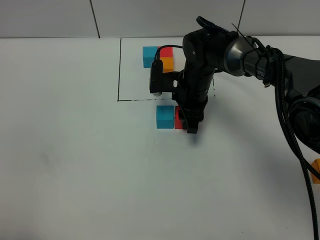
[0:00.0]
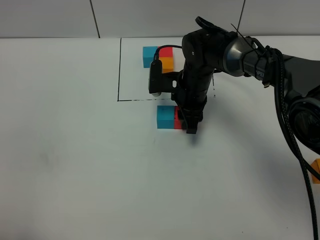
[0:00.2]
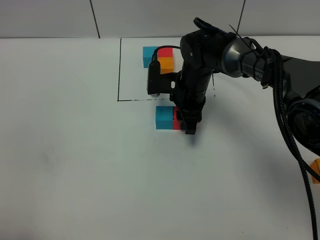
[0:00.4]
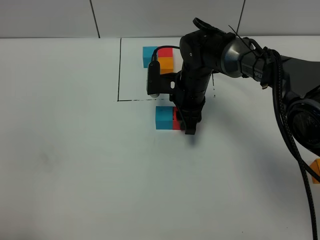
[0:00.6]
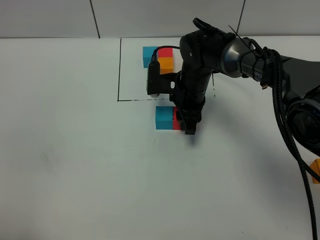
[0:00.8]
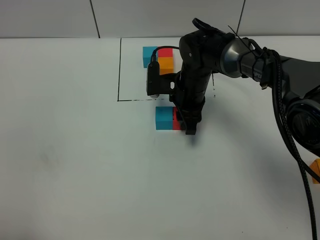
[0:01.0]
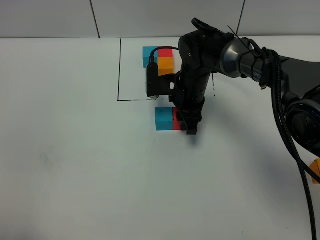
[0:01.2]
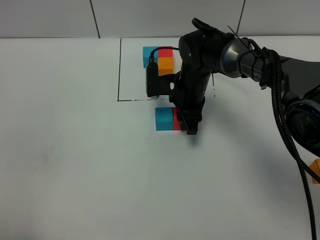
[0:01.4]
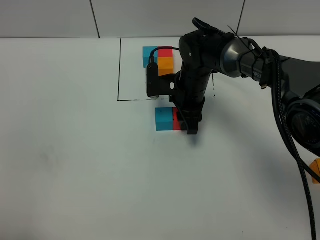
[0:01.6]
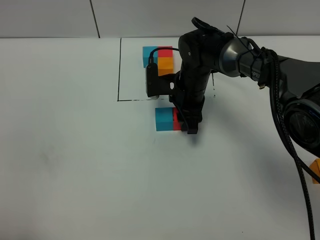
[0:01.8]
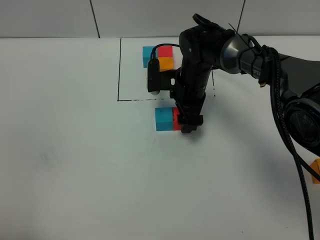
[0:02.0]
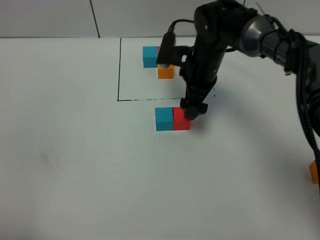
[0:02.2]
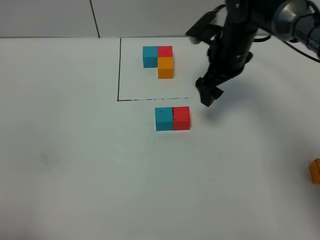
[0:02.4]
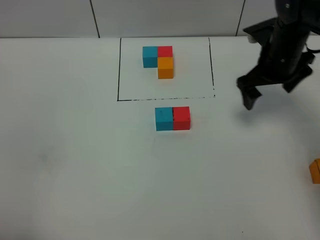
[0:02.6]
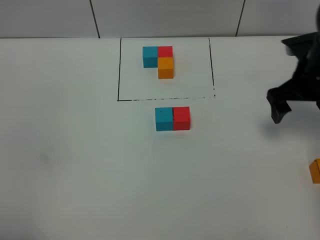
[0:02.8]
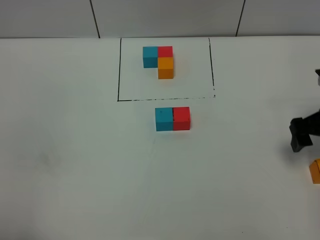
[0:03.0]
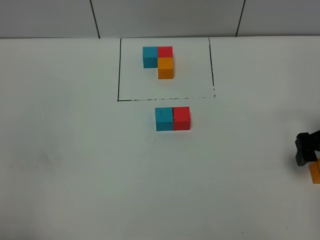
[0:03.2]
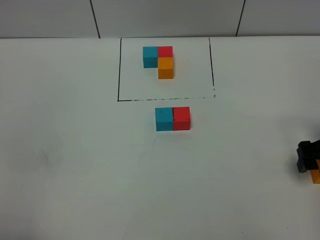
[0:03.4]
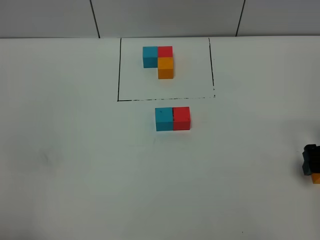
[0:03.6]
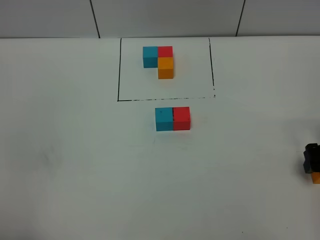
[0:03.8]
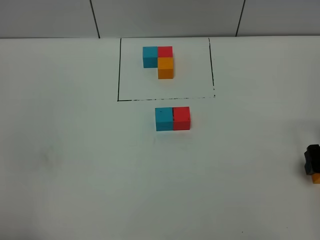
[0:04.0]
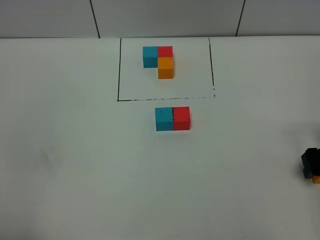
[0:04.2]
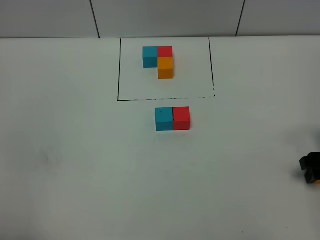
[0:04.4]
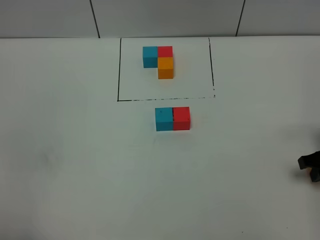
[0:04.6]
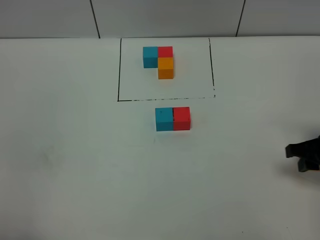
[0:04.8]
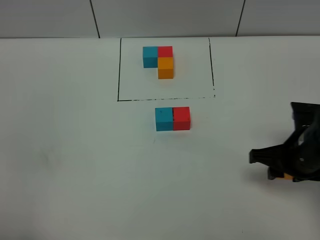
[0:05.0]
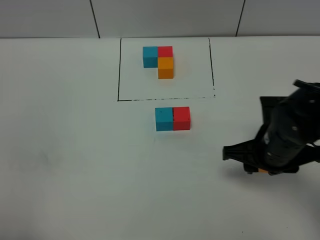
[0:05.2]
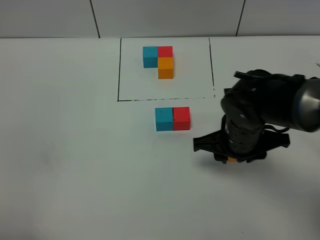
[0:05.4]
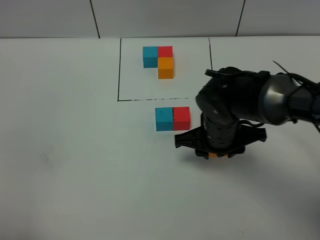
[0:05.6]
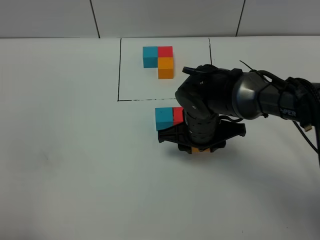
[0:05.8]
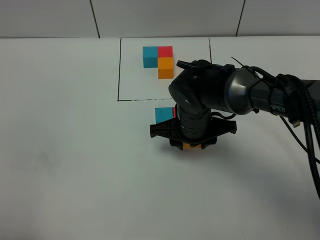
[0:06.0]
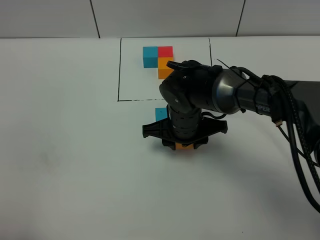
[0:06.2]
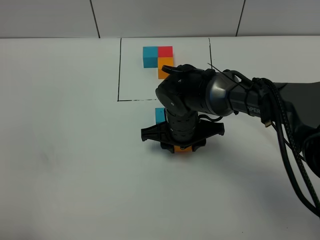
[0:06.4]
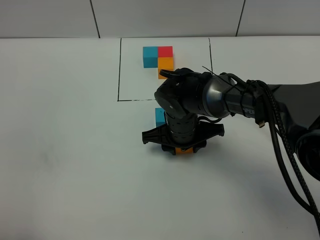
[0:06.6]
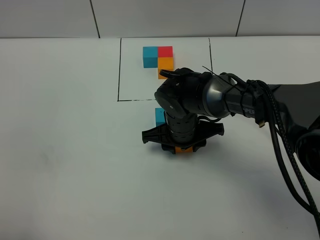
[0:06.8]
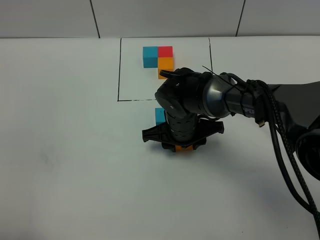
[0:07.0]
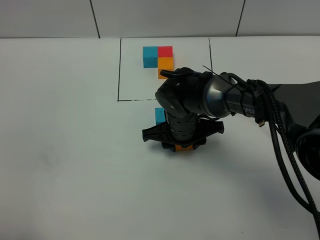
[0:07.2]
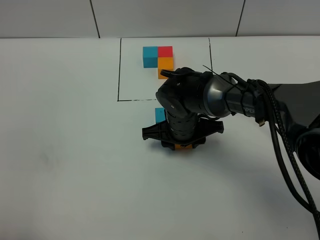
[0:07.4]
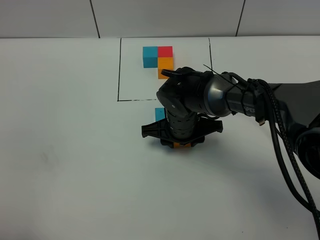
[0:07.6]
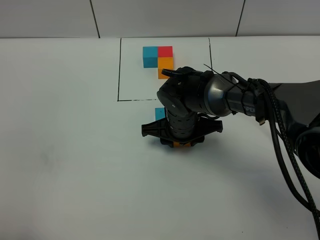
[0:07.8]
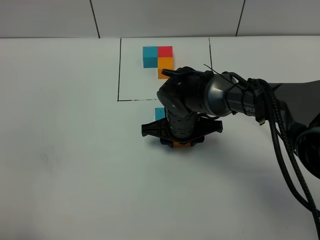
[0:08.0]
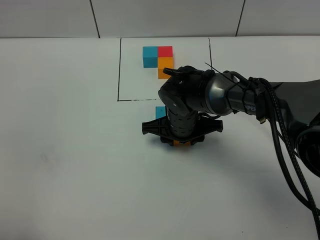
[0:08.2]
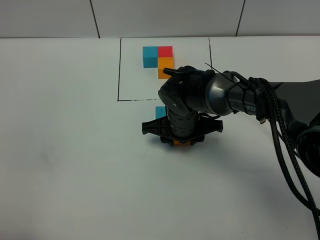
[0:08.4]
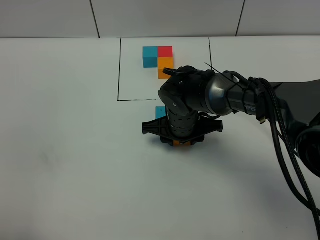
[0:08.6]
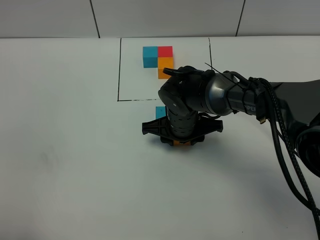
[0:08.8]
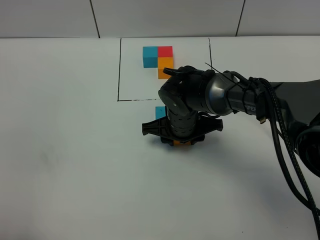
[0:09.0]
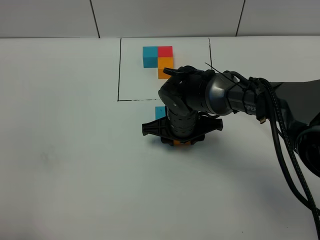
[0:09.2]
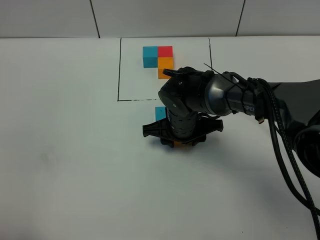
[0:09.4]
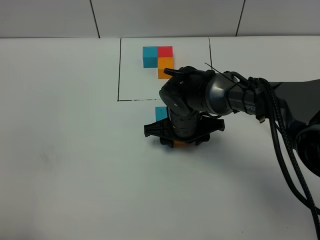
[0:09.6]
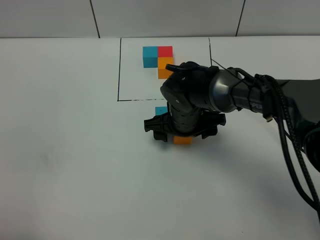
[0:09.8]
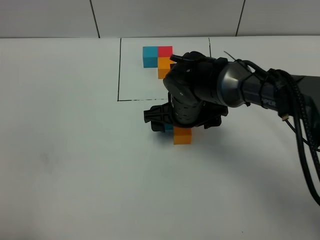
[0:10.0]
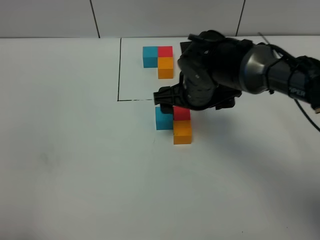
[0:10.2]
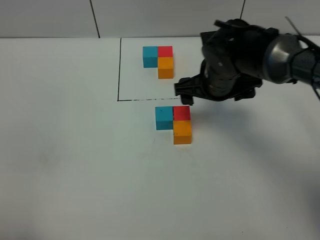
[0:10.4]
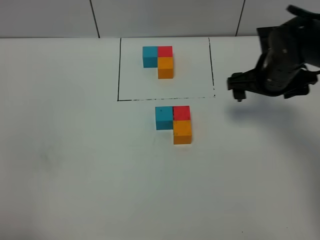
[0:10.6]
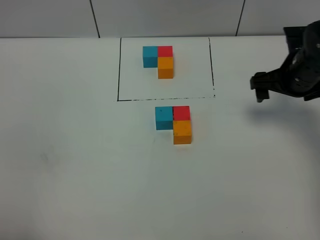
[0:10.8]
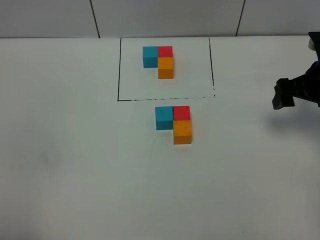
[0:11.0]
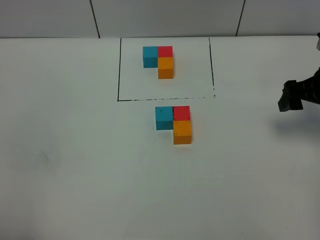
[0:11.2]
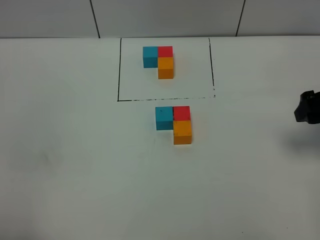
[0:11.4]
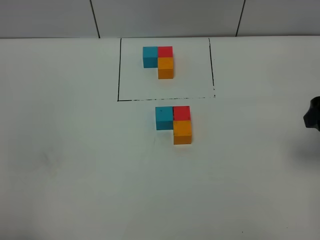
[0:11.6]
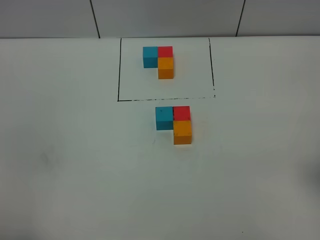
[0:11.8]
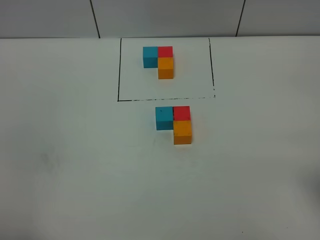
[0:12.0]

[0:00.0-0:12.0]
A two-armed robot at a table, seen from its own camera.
Task of the whole recording: According to the building block template in front, assemble the scattered blocks together.
Step, 0:01.8 to 0:09.6: Put the orange build block on the behind of the red build block.
0:00.0 to 0:01.6: Both grippers stay about where they are.
0:01.6 to 0:03.0: The right gripper travels to the right and backward by some 30 cm, and opens up.
0:03.0 to 0:04.4: The right gripper moves downward, approximately 5 cm, and closes its fingers.
0:04.4 to 0:06.0: The right gripper shifts some 30 cm to the left.
0:06.0 to 0:07.6: The grippers move only a little.
0:07.6 to 0:09.0: Neither gripper changes place.
0:09.0 to 0:10.4: The right gripper goes approximately 10 cm to the right and upward, and opens.
0:10.4 to 0:12.0: The right gripper goes roughly 30 cm backward, to the right and upward.

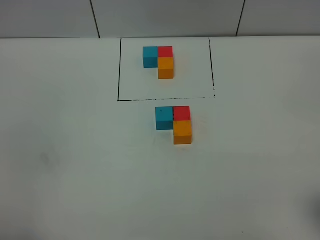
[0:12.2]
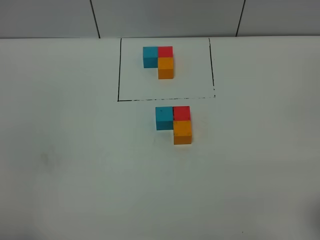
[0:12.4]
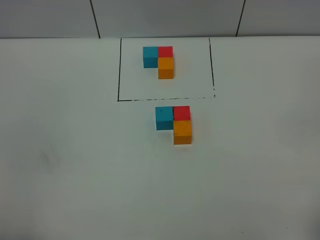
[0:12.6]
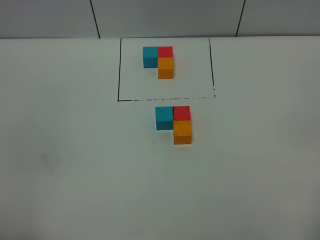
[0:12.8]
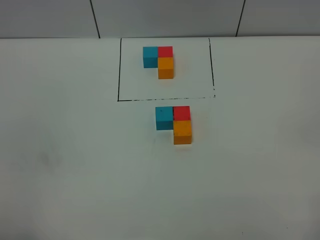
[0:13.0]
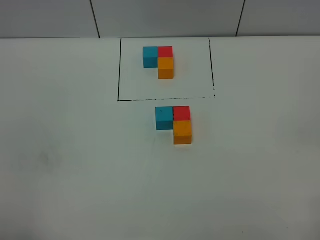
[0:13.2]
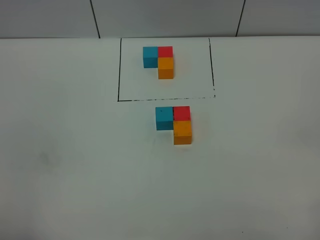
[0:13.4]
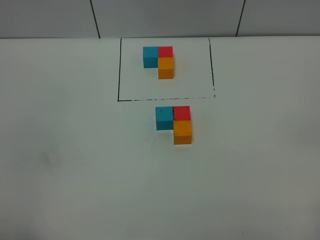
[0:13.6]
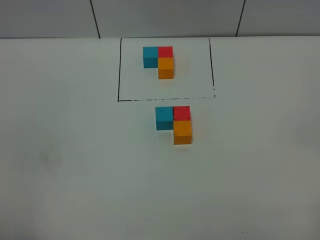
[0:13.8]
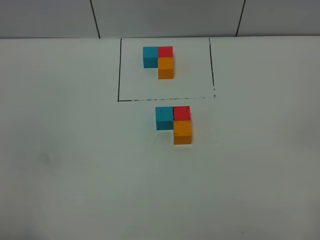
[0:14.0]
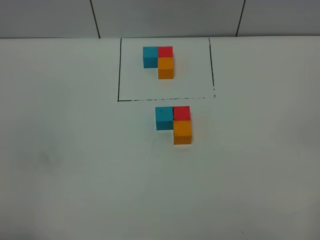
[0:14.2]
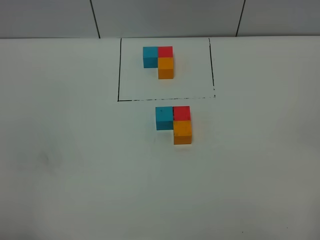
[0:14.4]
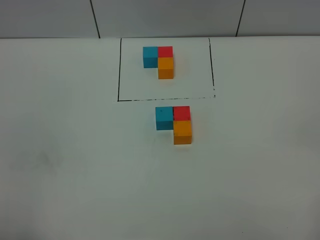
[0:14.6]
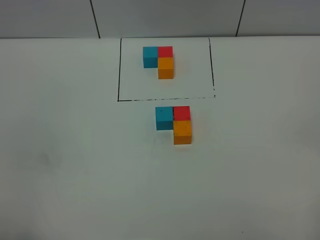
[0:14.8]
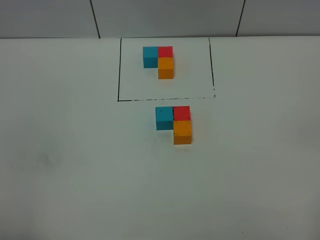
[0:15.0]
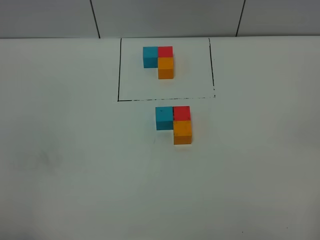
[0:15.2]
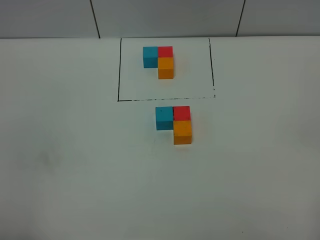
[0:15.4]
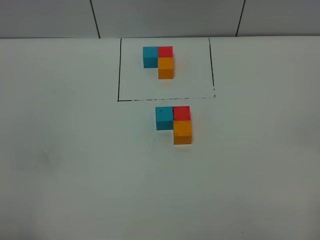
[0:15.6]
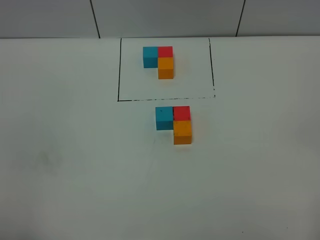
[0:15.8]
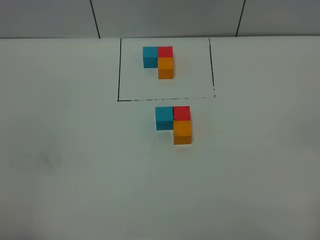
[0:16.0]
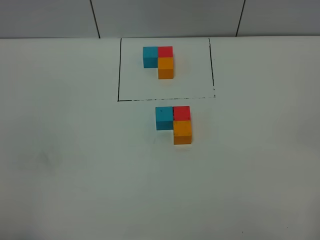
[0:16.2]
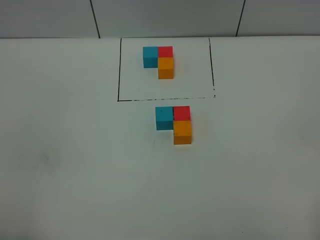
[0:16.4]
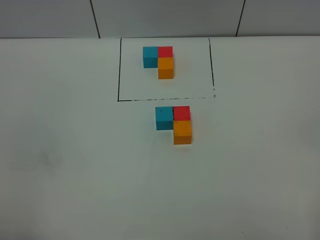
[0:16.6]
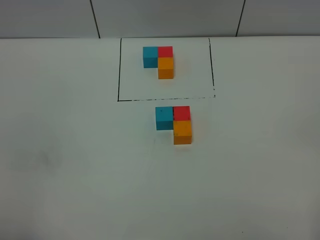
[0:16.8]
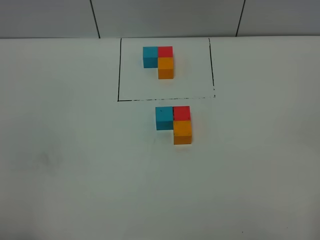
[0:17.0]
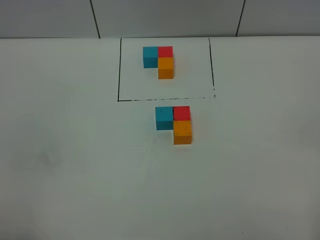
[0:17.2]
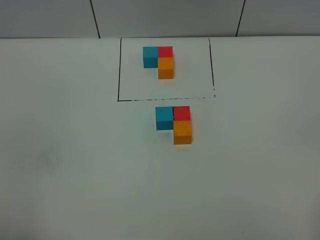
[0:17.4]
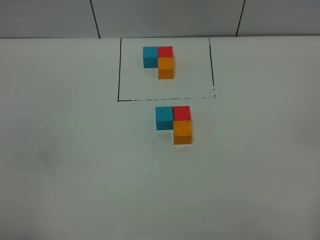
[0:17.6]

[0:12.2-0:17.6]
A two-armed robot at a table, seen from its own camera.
Task of the whole recording: According to the building block template in front, assemble the scattered blocks together.
0:13.6 to 0:16.2: Neither gripper changes place.
0:16.2 to 0:17.6: Neither gripper changes place.

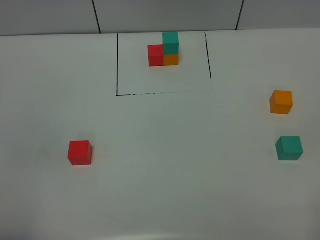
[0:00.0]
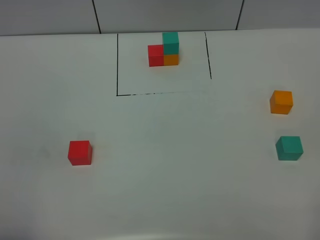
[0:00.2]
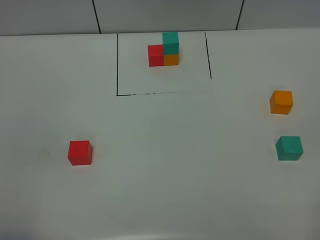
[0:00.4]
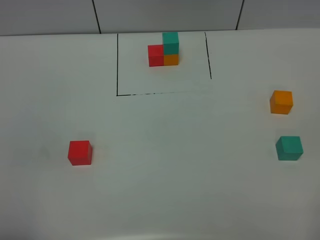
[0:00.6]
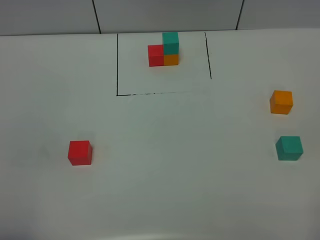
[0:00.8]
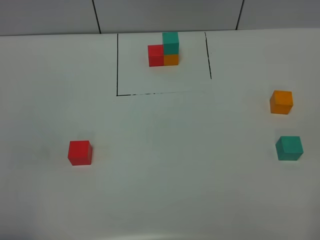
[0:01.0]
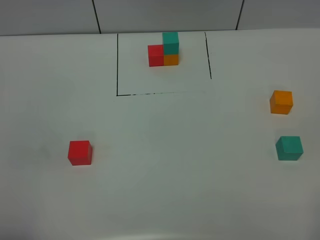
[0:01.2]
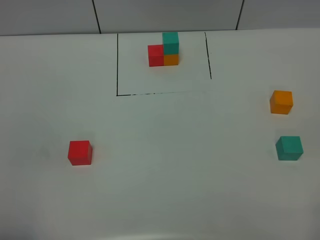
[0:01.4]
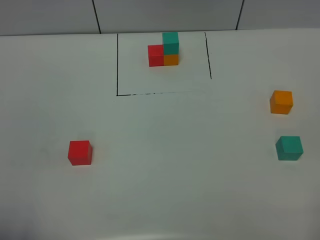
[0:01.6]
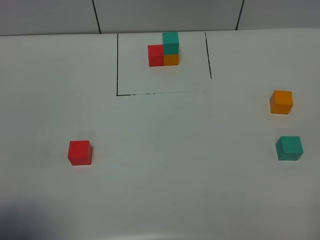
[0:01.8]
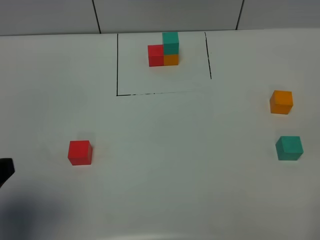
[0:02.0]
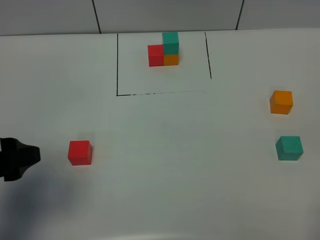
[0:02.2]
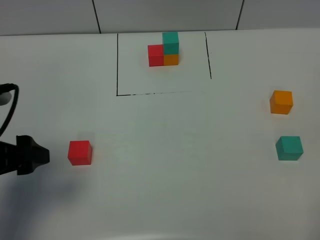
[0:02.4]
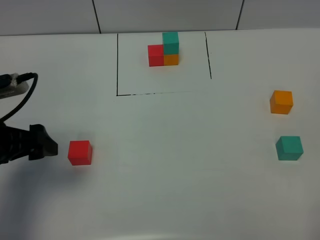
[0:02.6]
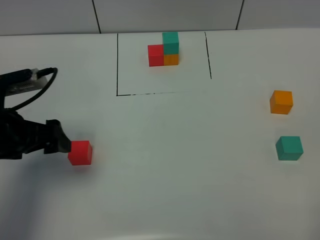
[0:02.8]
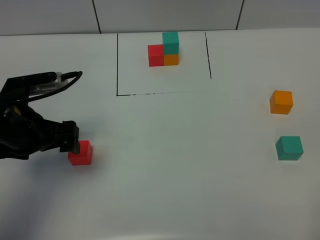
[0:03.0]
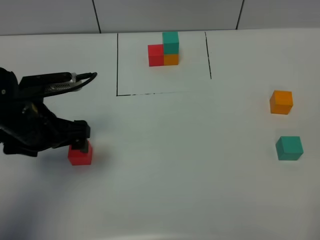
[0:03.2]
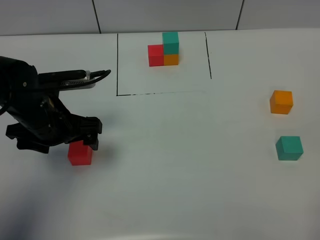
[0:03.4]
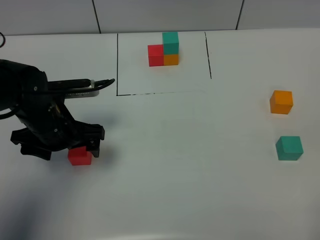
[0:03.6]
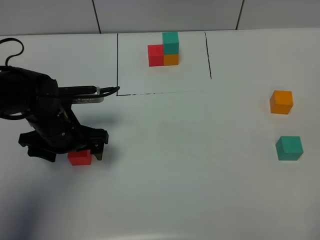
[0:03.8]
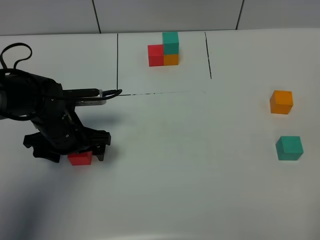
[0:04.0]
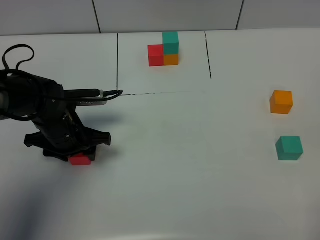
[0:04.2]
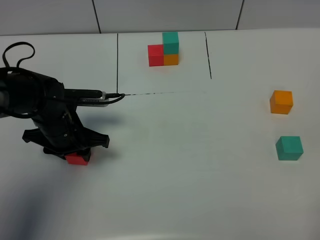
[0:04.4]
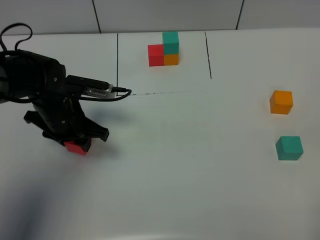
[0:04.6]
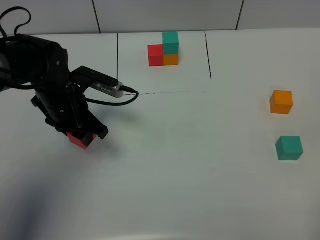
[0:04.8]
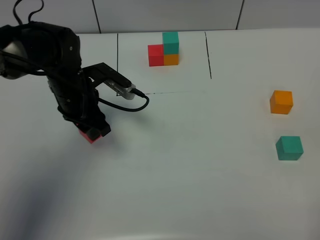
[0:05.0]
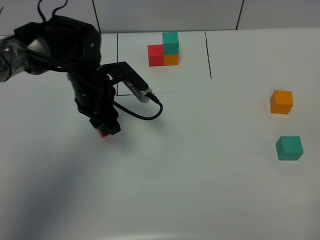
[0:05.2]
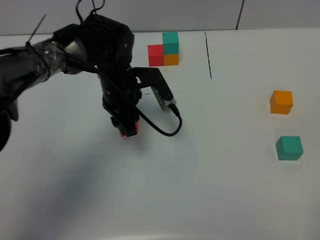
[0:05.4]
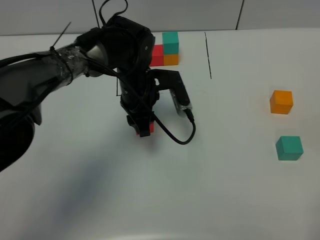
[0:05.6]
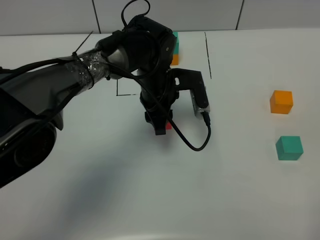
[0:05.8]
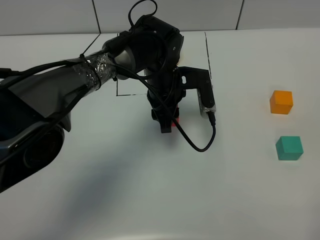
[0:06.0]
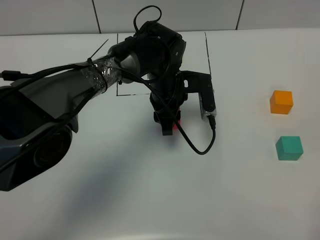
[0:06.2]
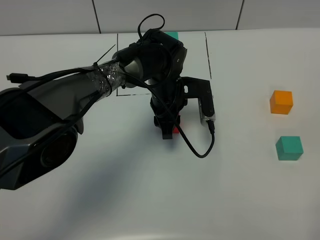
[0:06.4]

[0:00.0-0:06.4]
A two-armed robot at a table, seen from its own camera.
Task of the whole recording: According to the building block template in front, assemble the scattered blocks together.
0:01.6 to 0:03.2: The left gripper travels forward by about 25 cm.
0:03.2 to 0:04.8: The left gripper moves forward, about 5 cm, and closes its fingers.
0:04.8 to 0:06.4: The left gripper goes about 20 cm to the right.
